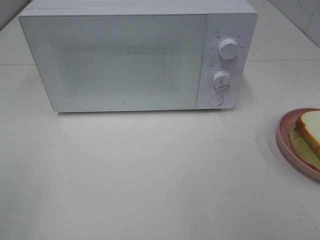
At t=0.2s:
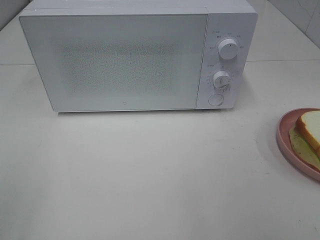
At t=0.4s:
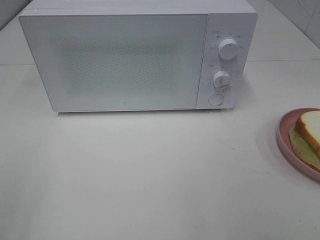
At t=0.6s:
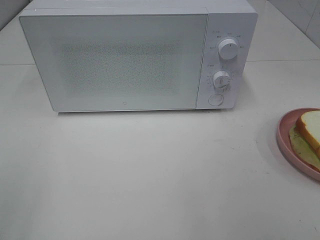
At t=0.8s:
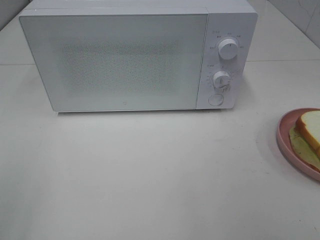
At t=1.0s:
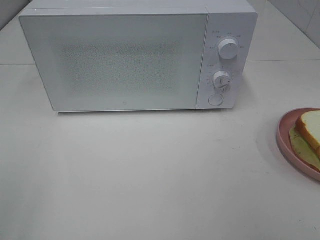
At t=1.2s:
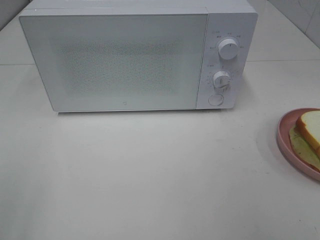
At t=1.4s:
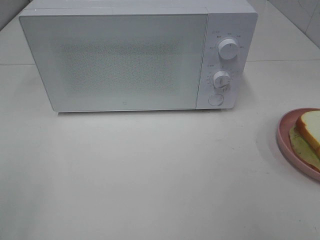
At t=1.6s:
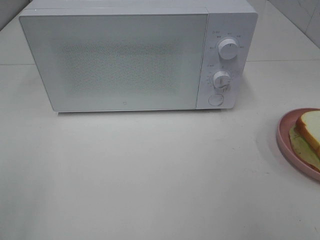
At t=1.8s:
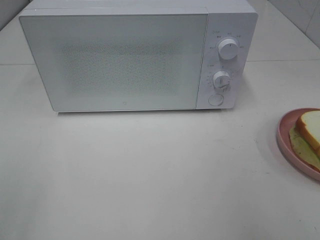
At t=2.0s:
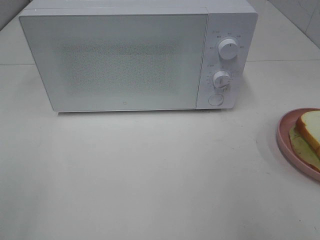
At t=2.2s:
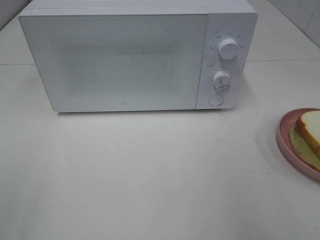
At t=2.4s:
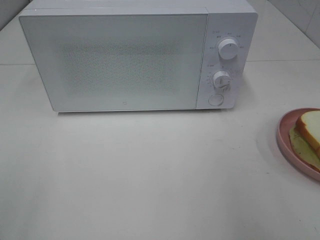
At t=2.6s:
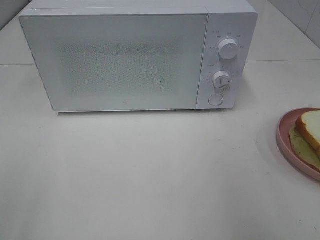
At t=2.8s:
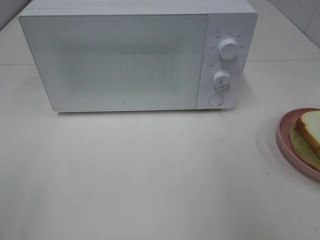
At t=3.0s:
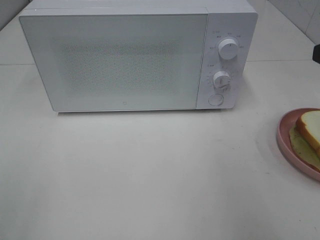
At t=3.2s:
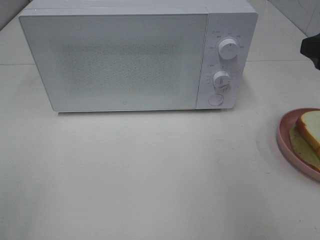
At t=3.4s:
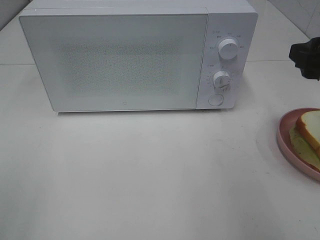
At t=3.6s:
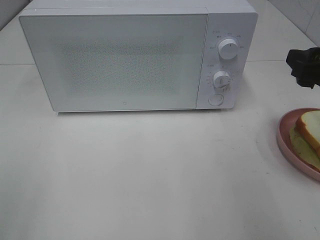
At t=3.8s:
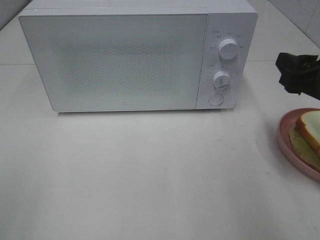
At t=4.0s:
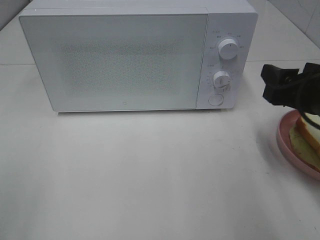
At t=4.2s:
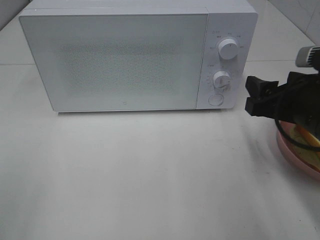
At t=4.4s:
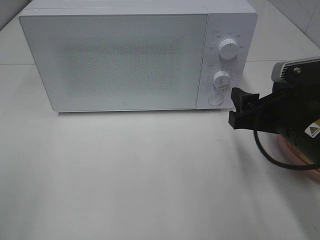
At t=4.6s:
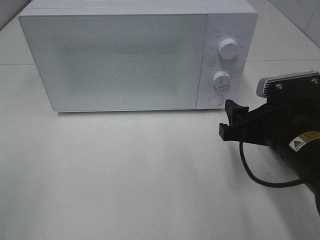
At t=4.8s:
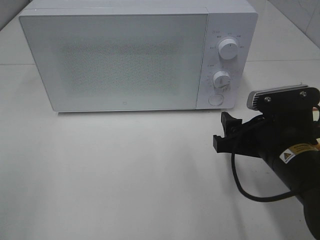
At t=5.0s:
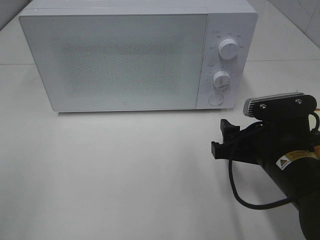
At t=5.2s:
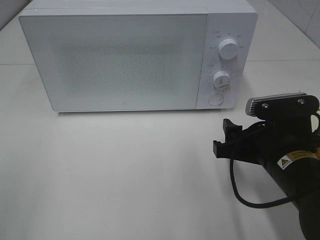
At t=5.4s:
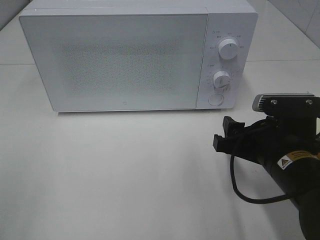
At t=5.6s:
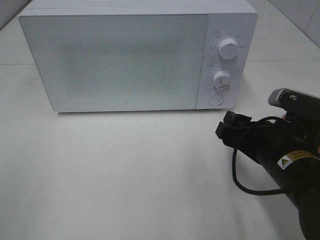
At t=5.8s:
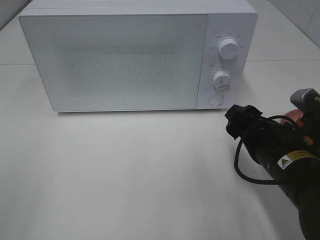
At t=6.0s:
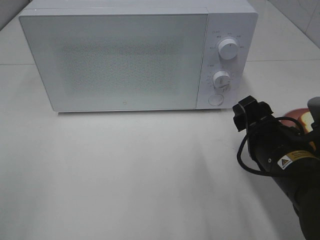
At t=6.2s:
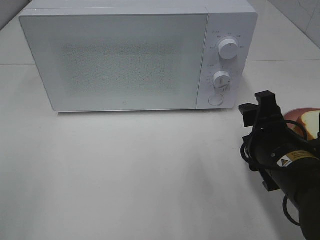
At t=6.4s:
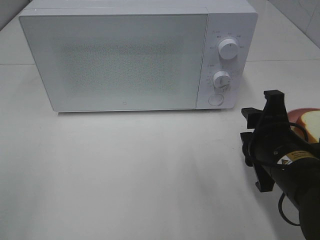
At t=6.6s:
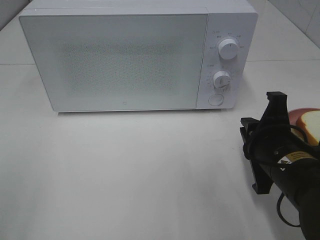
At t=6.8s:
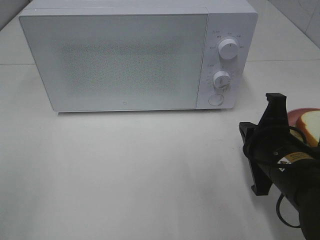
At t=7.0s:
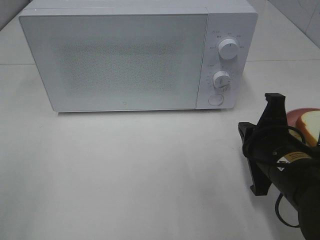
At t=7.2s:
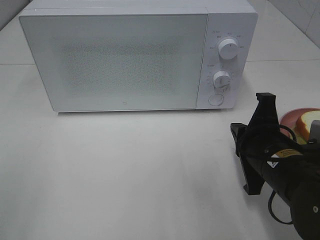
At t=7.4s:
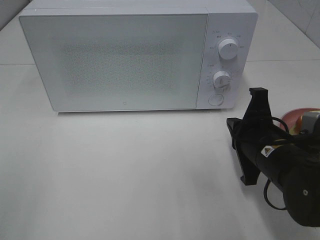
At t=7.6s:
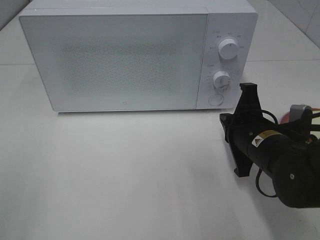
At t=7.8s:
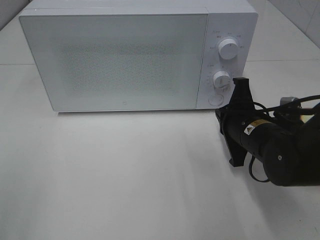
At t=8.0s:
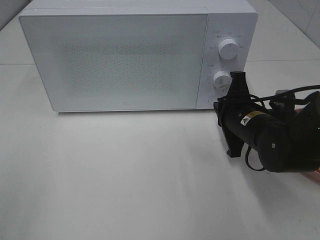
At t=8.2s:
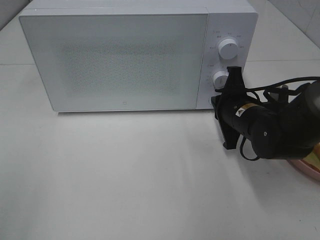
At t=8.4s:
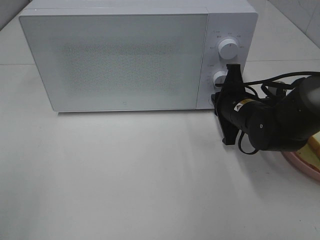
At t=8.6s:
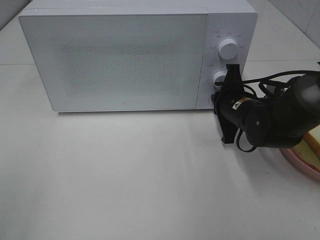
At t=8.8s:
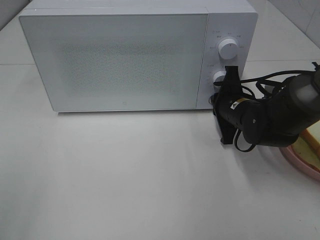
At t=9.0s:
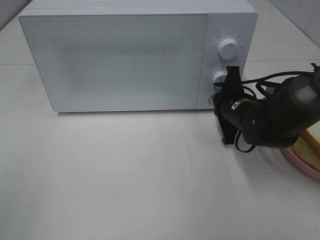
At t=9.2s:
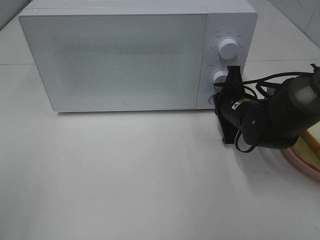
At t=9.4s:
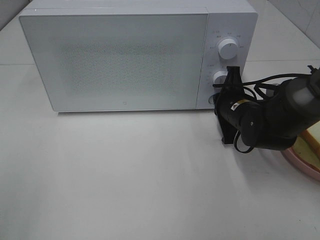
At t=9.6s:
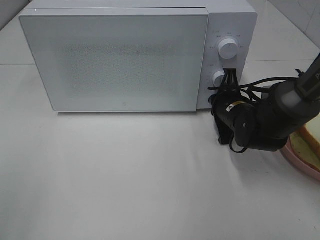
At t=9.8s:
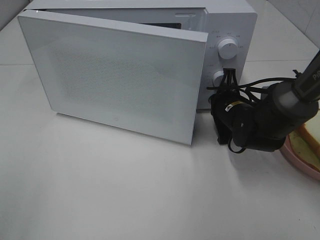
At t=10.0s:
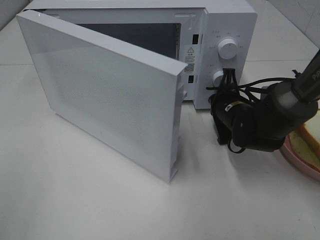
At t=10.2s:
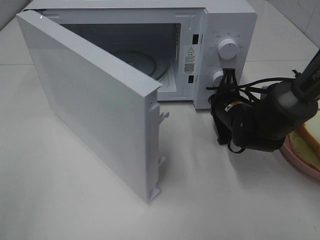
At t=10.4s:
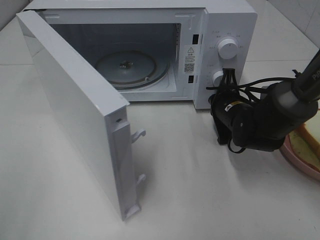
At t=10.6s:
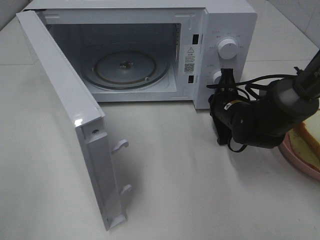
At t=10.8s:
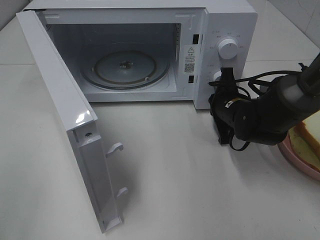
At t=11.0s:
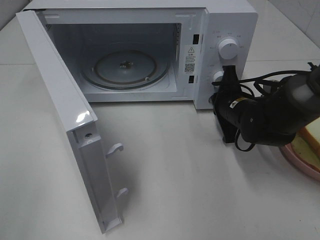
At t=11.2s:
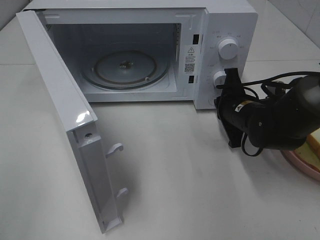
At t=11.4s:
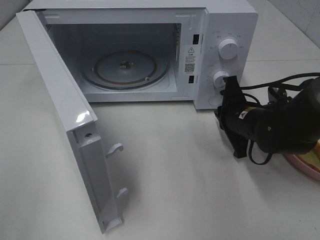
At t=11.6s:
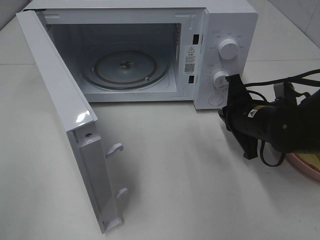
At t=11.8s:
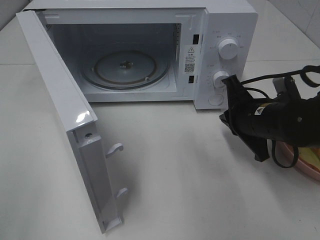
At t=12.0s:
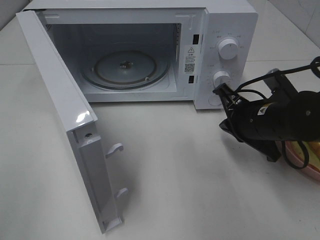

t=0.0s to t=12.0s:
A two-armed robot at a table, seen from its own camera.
Task of the whole recording: Heat Sandwich.
Step, t=0.0s to t=11.2s: Right hand: press the switch.
t=3.0s to t=4.4s: The right gripper goes approximately 15 cm downward and to the left.
t=6.0s to t=7.6s: The right gripper heads forward, covering about 5 cm, and closes.
t=7.6s to t=9.0s: The right gripper shifts about 10 cm forward.
t=10.4s to t=12.0s: The right gripper moves backward and upward, some 10 cm.

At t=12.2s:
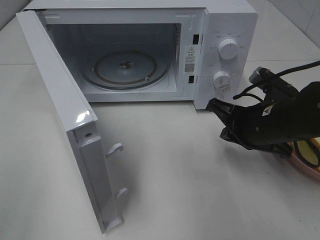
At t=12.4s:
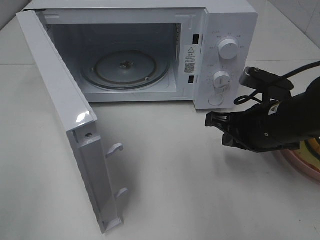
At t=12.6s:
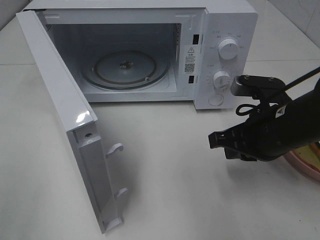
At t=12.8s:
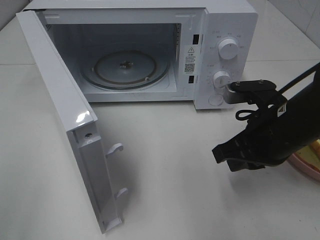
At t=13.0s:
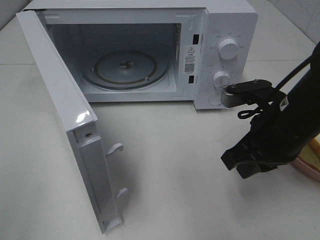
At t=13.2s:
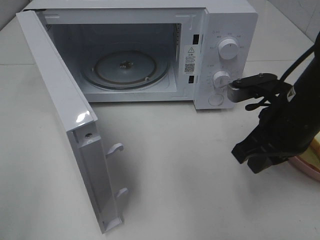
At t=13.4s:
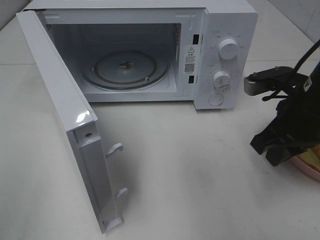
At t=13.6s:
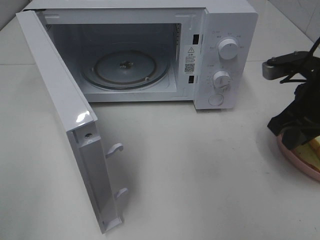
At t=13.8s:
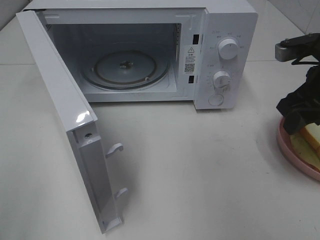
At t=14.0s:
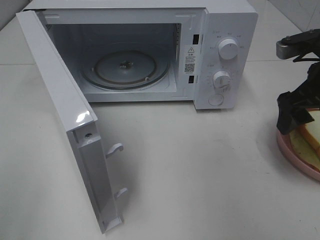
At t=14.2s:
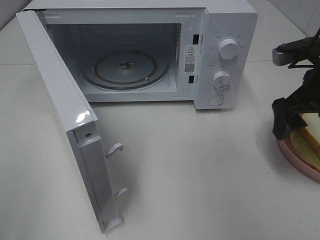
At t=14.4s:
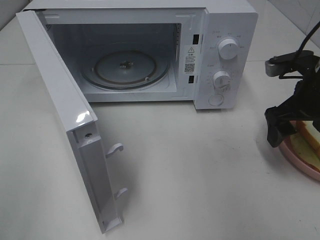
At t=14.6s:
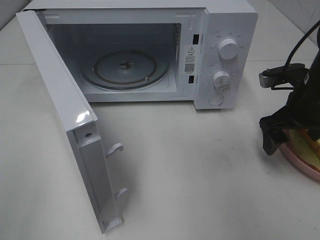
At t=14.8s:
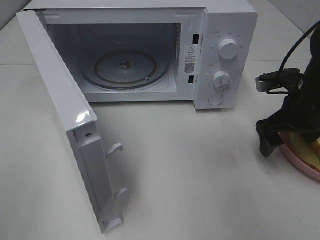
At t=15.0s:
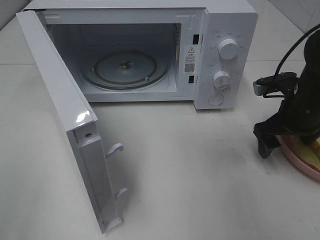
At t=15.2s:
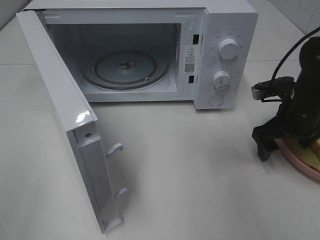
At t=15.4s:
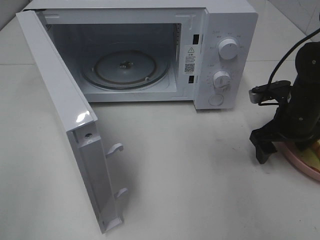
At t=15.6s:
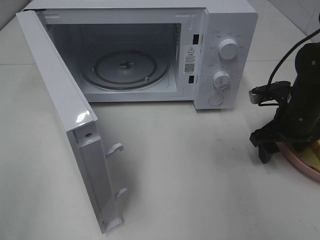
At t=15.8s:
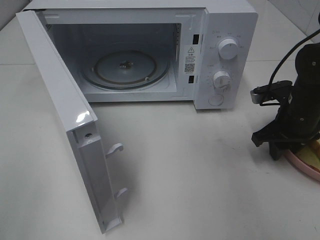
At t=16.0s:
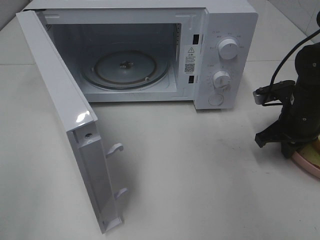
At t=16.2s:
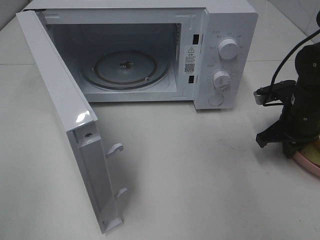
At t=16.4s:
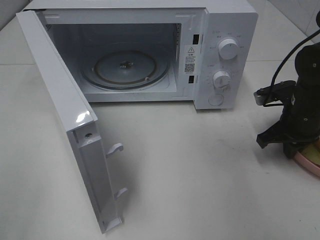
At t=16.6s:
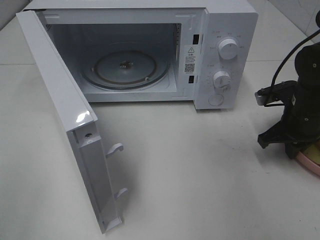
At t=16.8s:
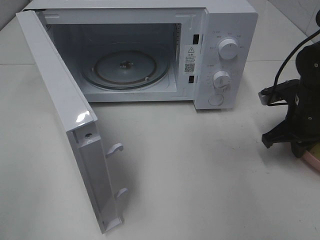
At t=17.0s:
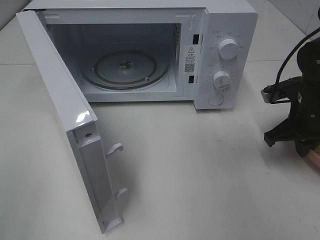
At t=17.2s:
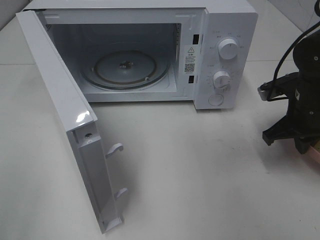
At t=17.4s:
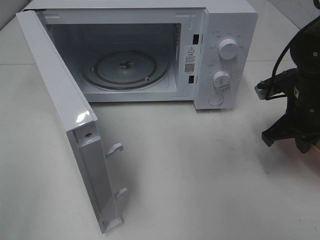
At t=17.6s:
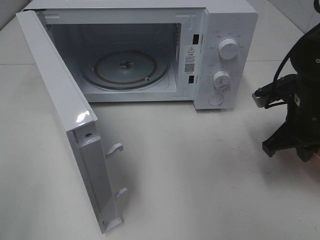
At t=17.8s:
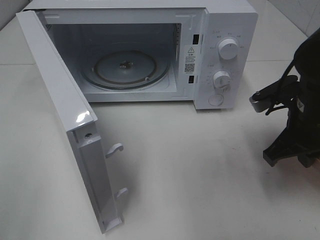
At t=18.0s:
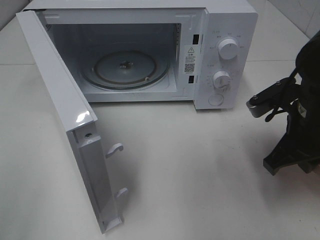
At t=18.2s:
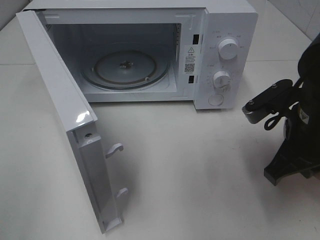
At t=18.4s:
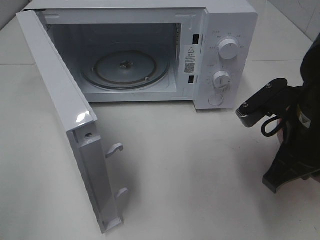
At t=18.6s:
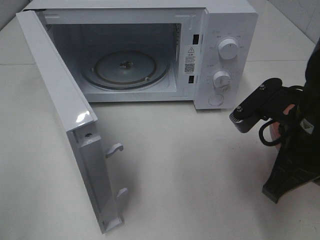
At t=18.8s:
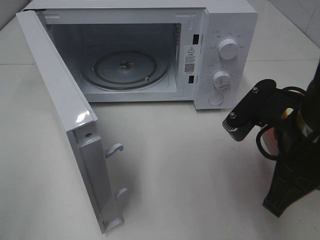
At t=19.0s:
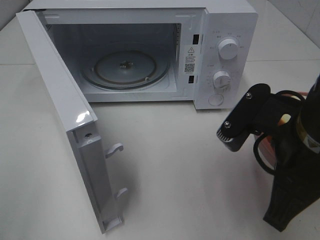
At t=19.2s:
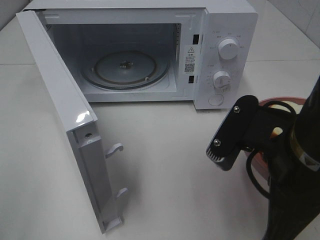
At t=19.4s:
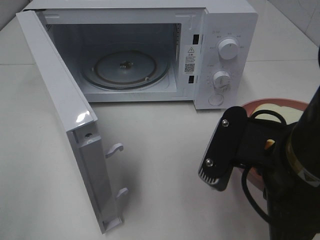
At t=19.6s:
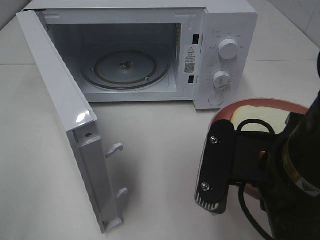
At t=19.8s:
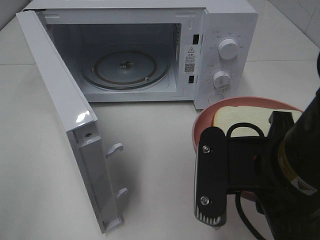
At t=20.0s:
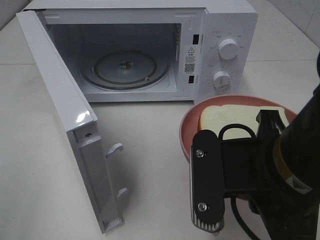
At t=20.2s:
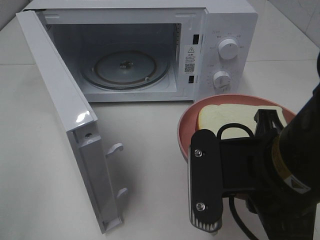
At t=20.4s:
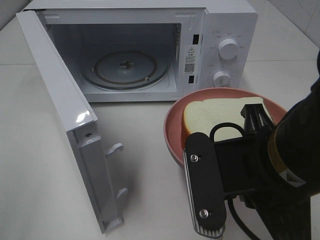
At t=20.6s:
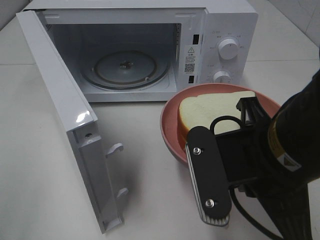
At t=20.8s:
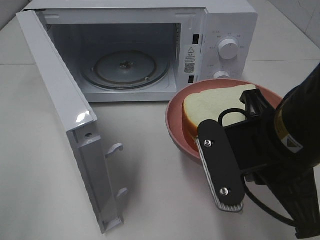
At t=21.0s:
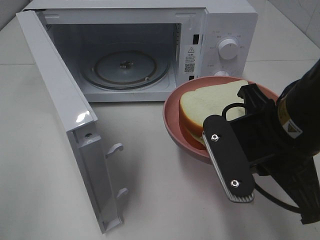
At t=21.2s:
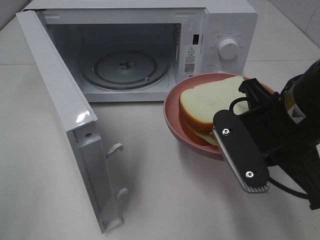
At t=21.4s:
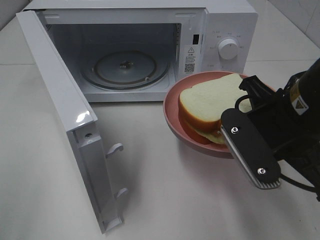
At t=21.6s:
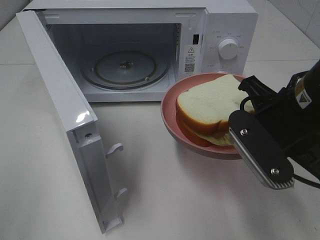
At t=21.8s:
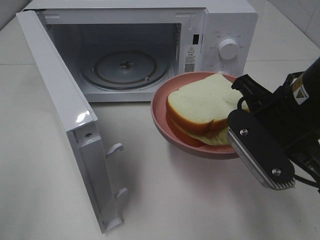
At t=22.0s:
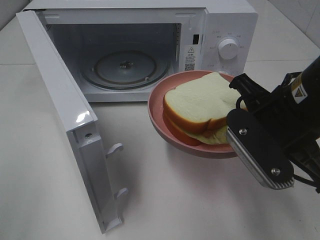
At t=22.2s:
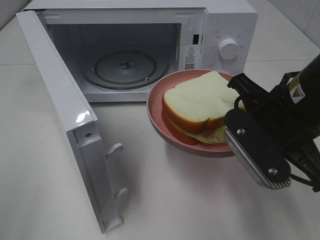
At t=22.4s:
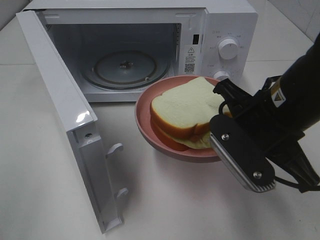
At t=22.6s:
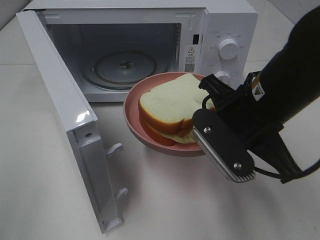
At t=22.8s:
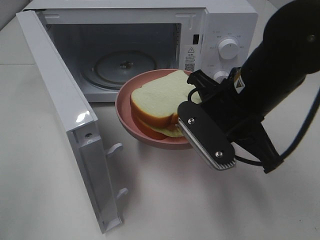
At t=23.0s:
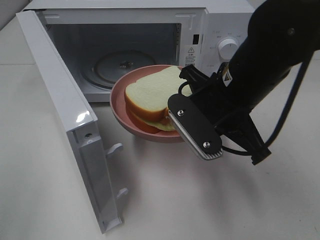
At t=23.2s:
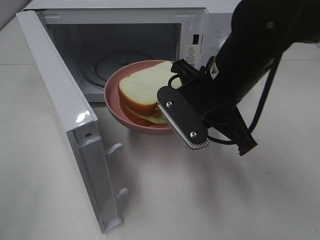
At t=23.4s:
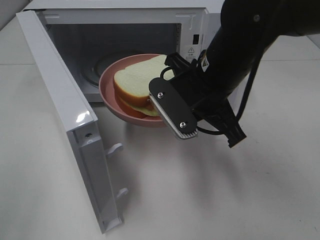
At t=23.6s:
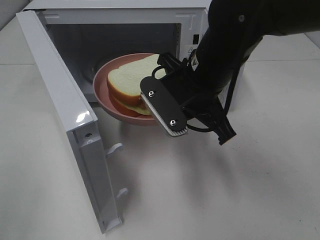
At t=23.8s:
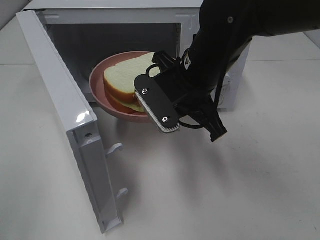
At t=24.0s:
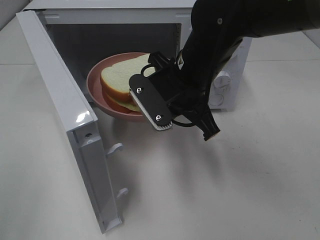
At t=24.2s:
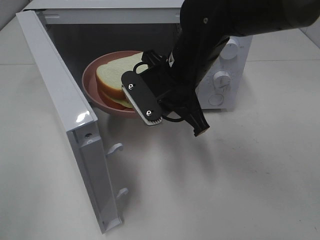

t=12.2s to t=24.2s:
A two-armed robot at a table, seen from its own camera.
Task of the whole recording: Heat Sandwich.
Step, t=12.2s to t=16.2s: Right hand: grab the plate with the sandwich.
t=12.2s to t=13.8s: The right gripper travels upward and to the right by approximately 10 cm, and opens up.
t=13.8s to t=15.2s: The right gripper shifts approximately 10 cm downward, and opens up.
t=15.2s to t=16.6s: The right gripper closes its fingers.
t=16.6s to t=18.2s: The right gripper moves backward, upward and to the left, approximately 15 cm.
t=18.2s to t=19.8s: The right gripper is displaced backward and to the left by approximately 15 cm.
t=19.8s to t=21.2s: The right gripper goes approximately 5 cm forward.
t=21.2s to t=22.6s: The grippers move only a little.
t=22.6s to t=24.2s: The right gripper travels forward and to the left by roughly 10 cm.
